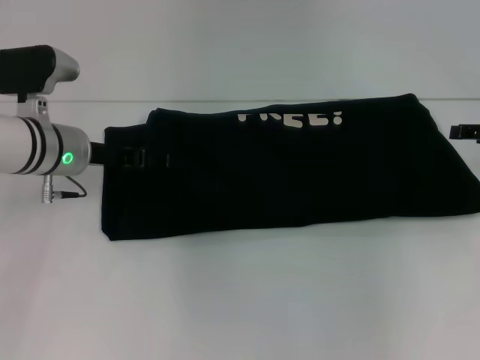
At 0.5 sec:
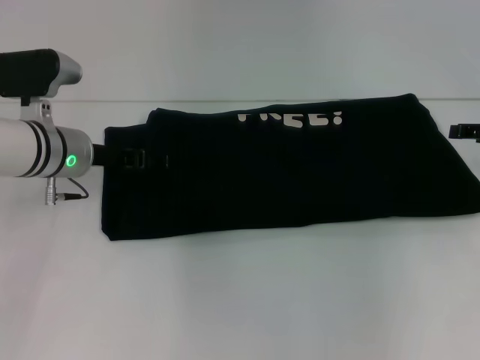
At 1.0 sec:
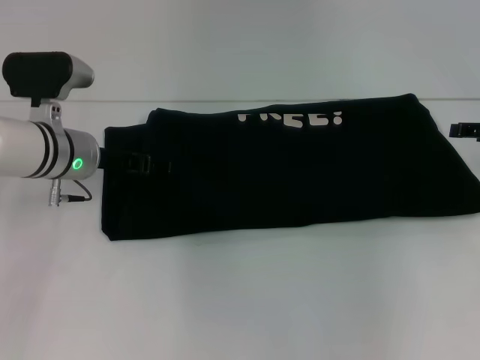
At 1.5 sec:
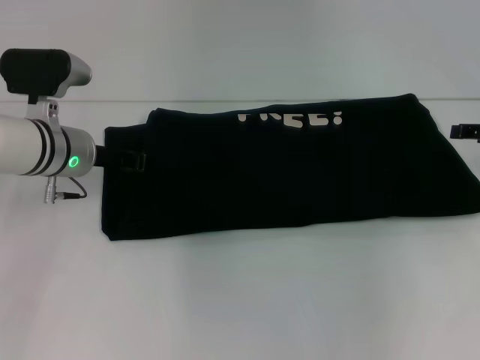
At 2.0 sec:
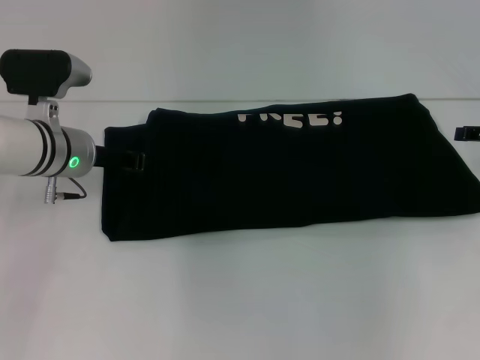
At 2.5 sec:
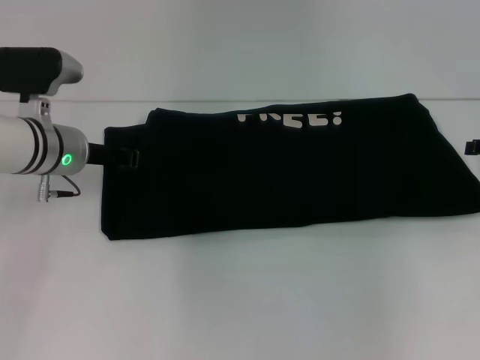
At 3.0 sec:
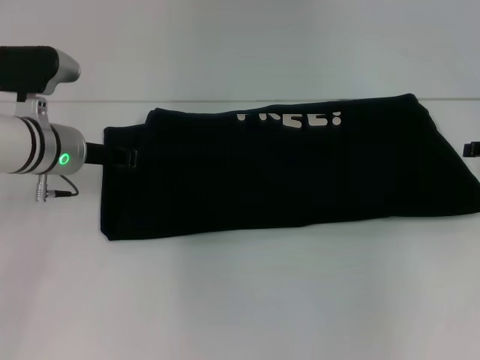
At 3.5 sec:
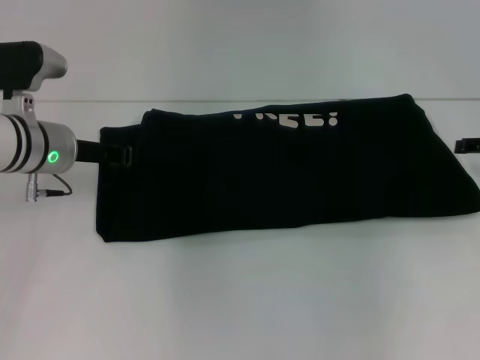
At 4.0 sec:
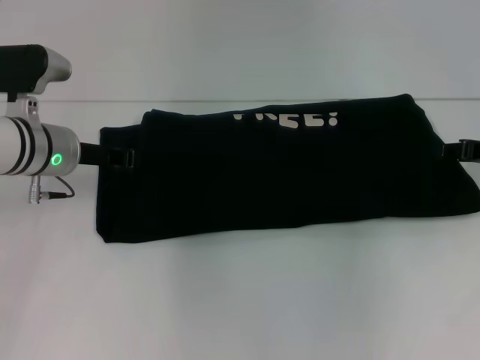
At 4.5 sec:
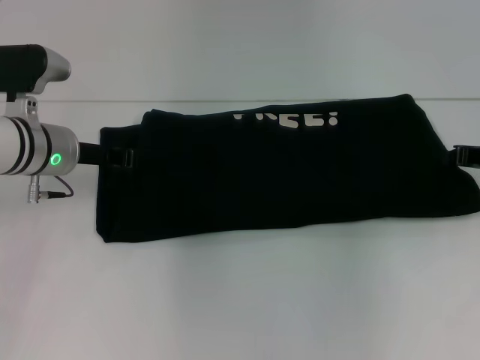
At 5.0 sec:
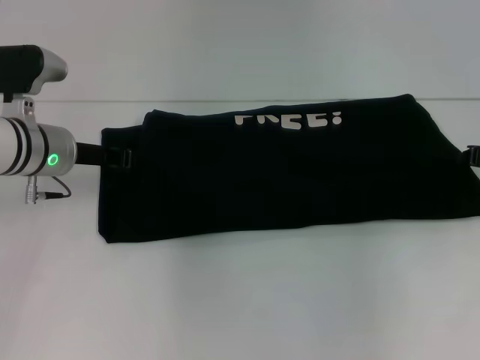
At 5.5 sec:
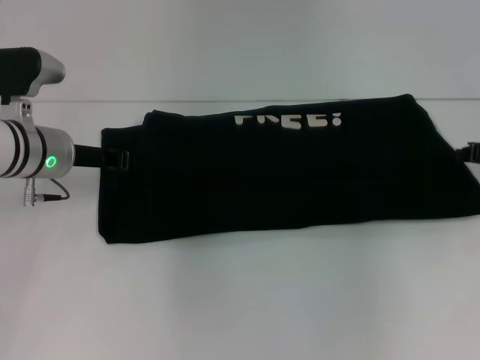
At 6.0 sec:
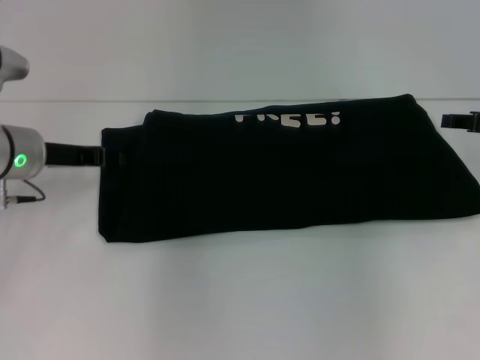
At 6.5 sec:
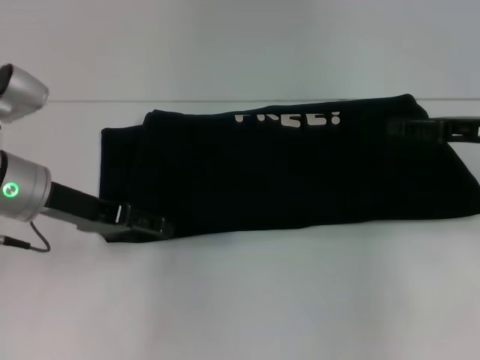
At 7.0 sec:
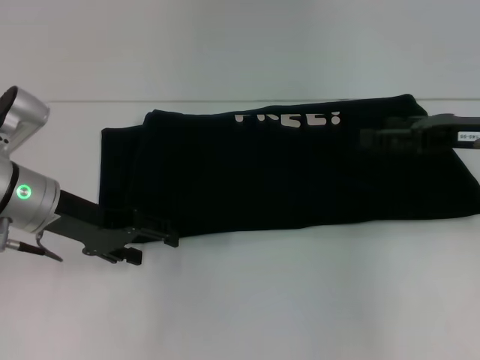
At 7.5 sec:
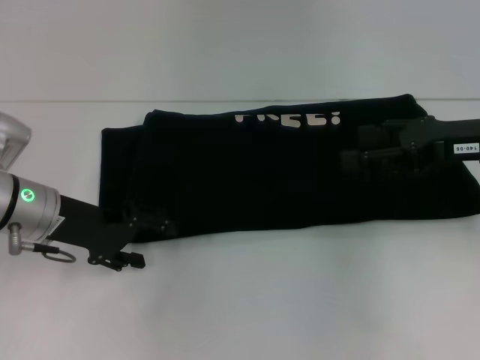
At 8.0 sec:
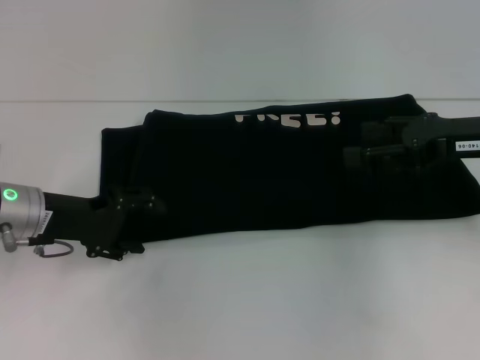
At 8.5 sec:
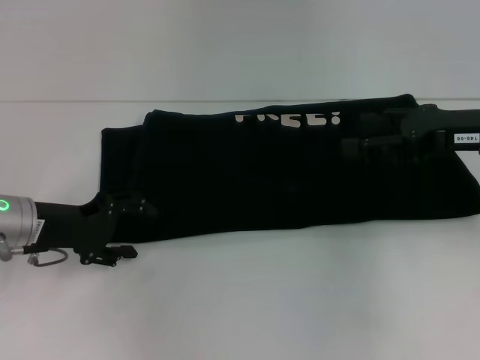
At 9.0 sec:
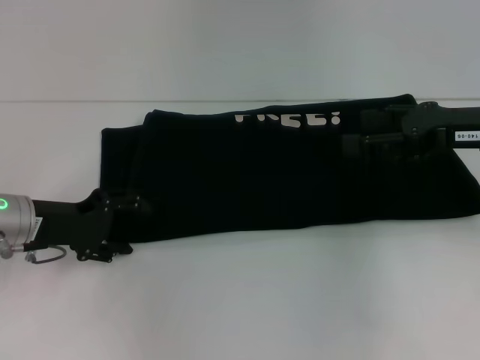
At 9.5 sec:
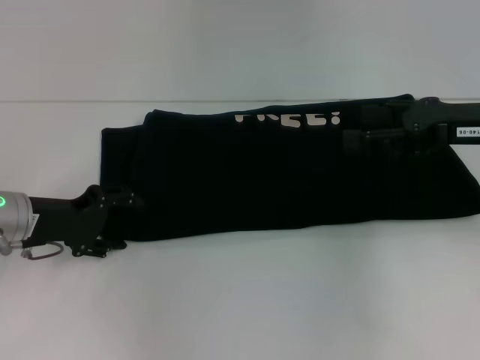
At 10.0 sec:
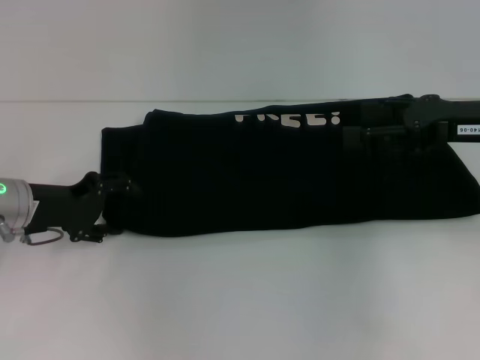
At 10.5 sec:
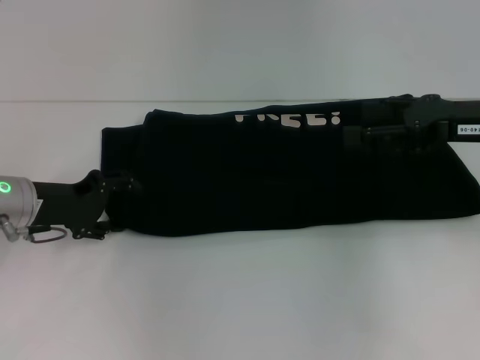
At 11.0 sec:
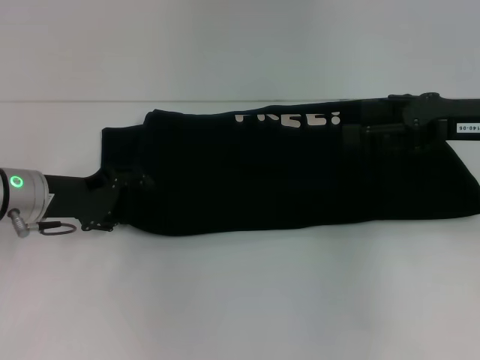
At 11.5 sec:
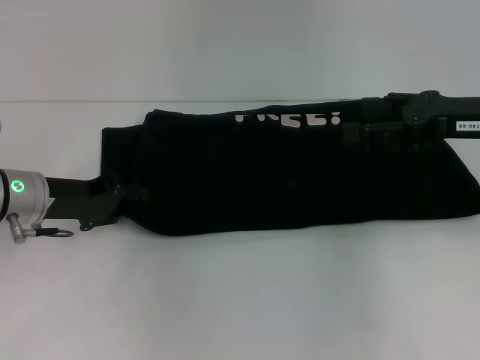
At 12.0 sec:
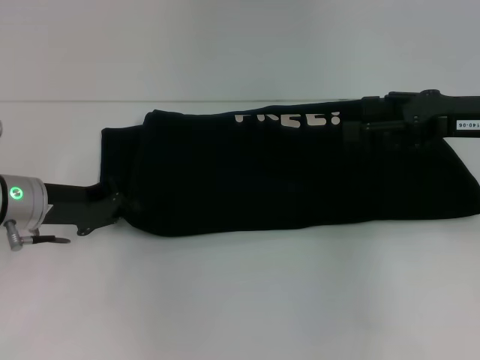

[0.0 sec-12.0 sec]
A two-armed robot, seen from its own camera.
0.0 sec to 2.0 sec: The left gripper closes up.
2.0 sec to 4.0 sec: There are only small adjustments of the grippers.
4.0 sec to 6.0 sec: The right gripper closes its fingers.
6.0 sec to 8.0 sec: The left gripper changes place by roughly 5 cm, and opens its fingers. Meanwhile the right gripper heads to the left, covering about 5 cm, and opens up.
8.0 sec to 10.0 sec: The grippers move only a little.
10.0 sec to 12.0 sec: The left gripper closes up.

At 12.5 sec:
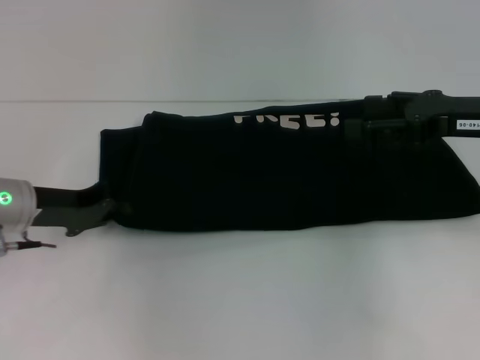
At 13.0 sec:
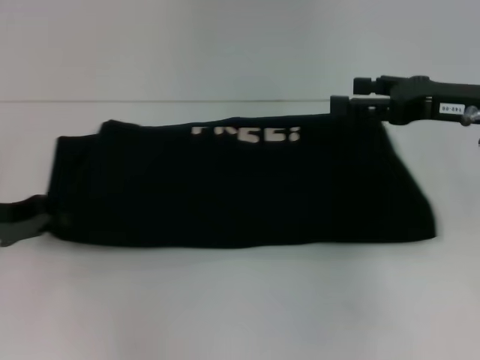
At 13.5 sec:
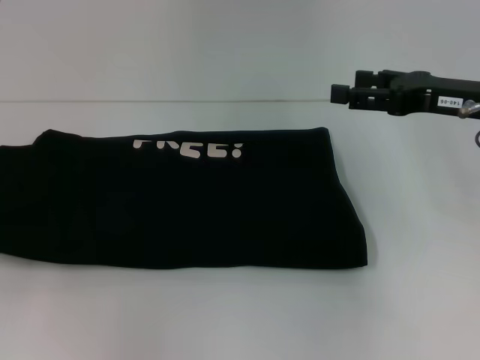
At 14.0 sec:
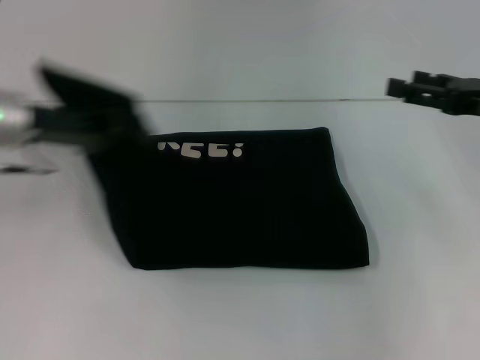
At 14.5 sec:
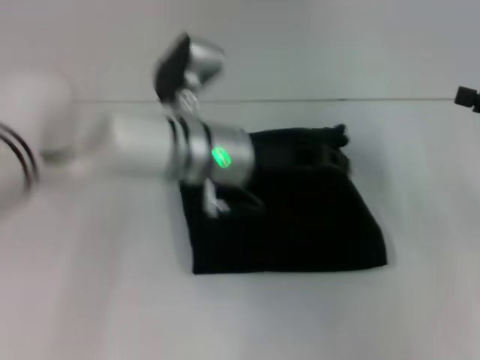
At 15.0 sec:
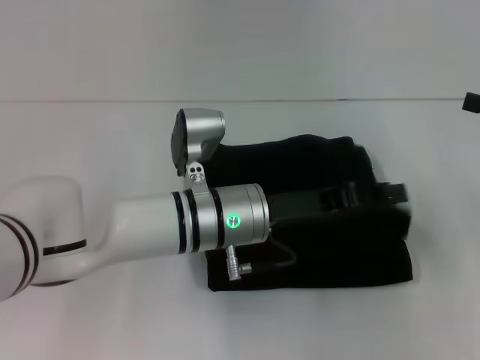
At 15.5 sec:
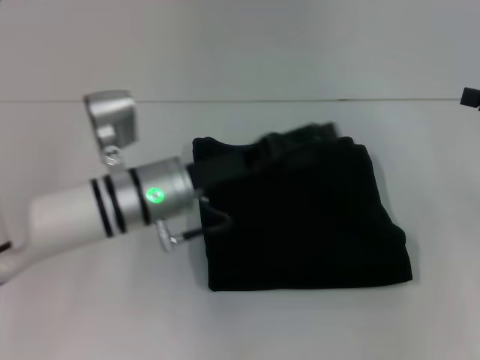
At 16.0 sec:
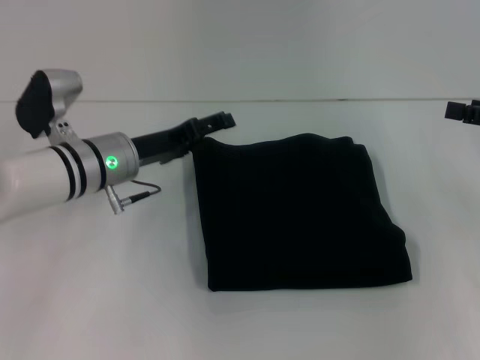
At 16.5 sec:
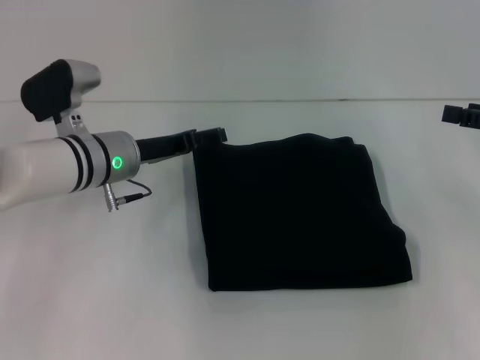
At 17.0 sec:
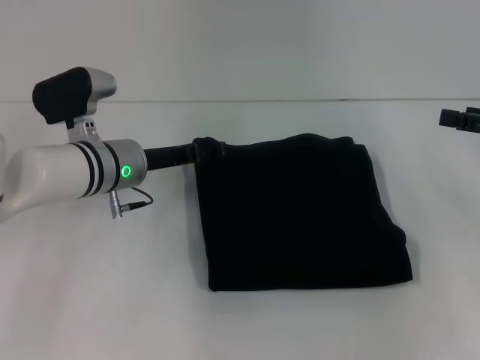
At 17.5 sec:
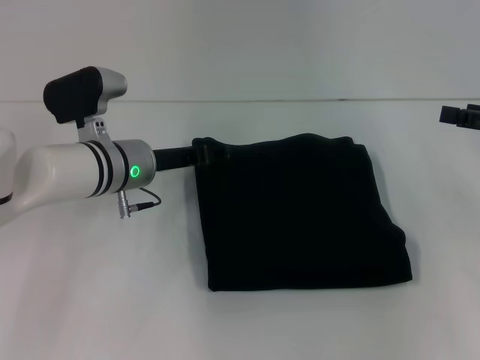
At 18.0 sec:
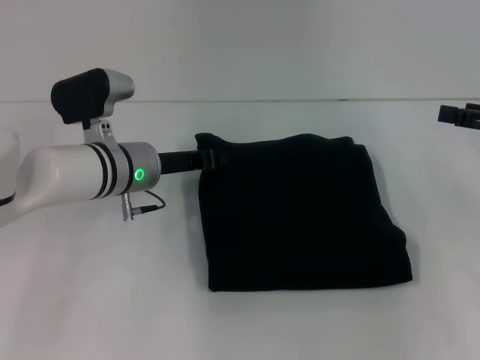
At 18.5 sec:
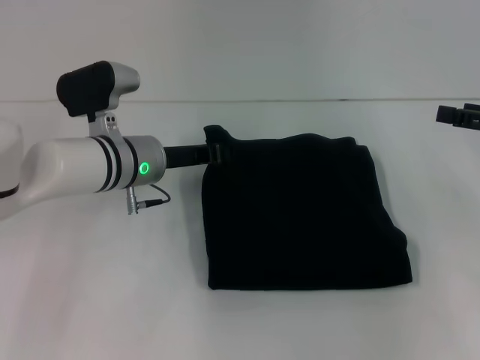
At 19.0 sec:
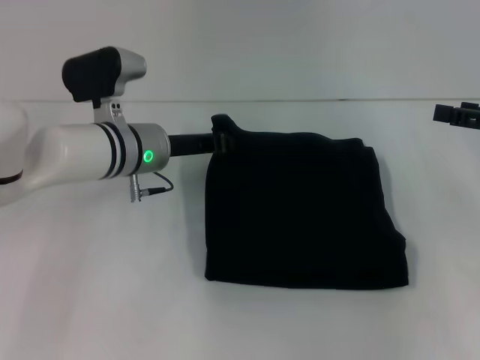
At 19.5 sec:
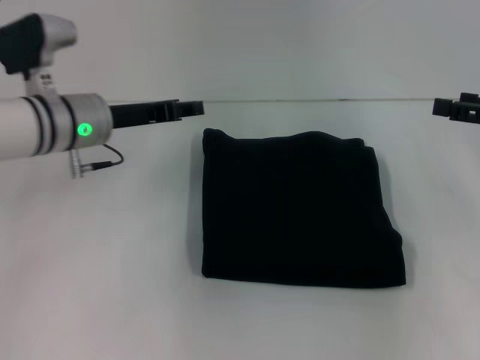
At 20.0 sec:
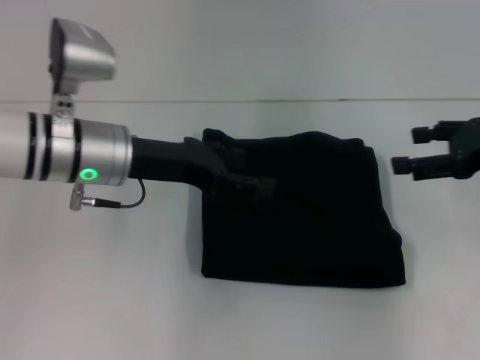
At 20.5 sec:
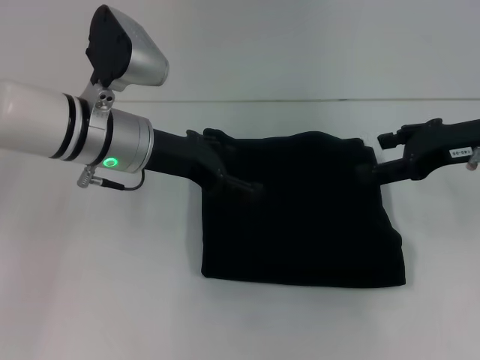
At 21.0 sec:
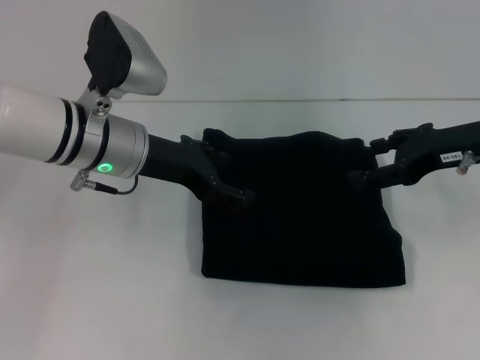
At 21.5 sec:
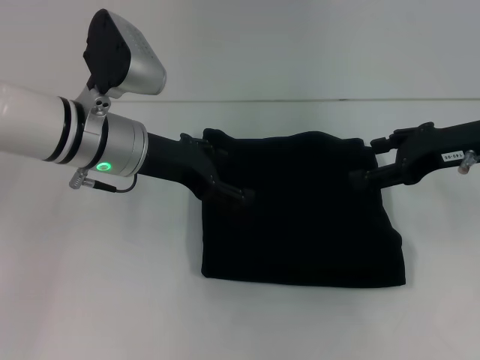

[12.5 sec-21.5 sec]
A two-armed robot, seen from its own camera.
Step, 12.5 sec to 15.0 sec: Fold the clothes with your left hand.
12.5 sec to 14.5 sec: The left gripper goes roughly 20 cm to the right; the right gripper travels to the right by some 10 cm.
14.5 sec to 17.0 sec: The left gripper shifts some 10 cm to the left, and opens up.
17.0 sec to 19.5 sec: The left gripper heads upward, covering approximately 5 cm, and closes up.
19.5 sec to 21.5 sec: The right gripper goes about 10 cm to the left, while the left gripper moves approximately 5 cm, and opens.
